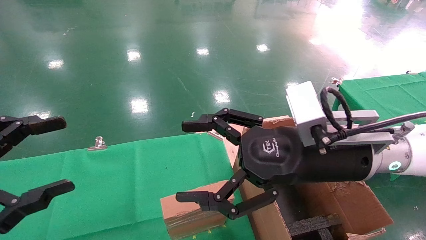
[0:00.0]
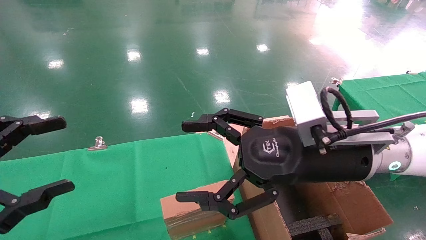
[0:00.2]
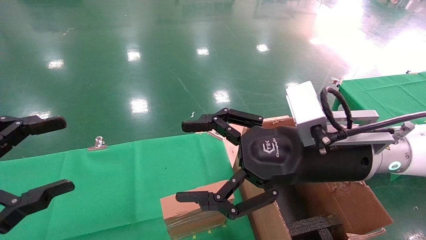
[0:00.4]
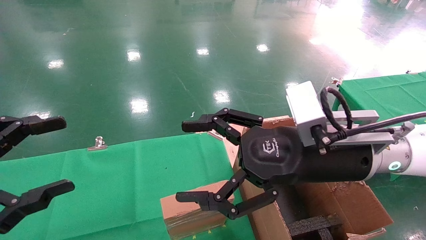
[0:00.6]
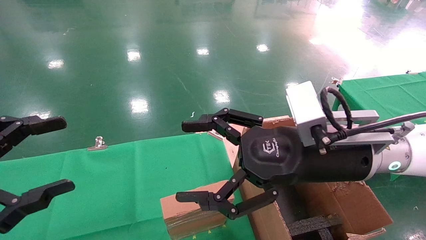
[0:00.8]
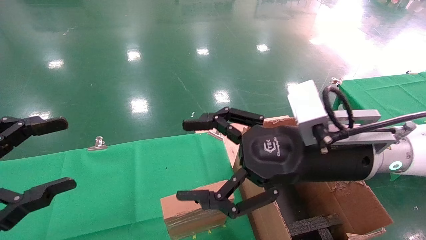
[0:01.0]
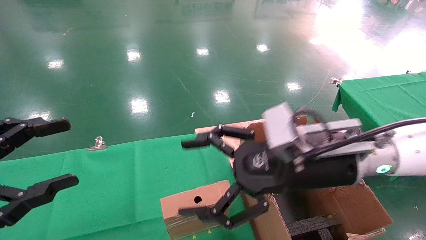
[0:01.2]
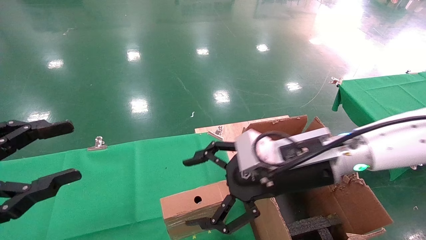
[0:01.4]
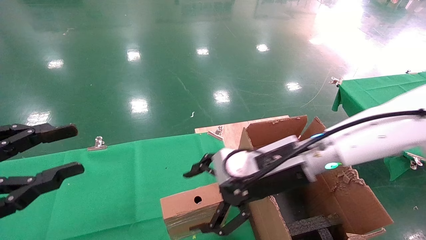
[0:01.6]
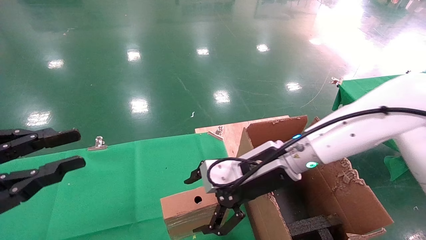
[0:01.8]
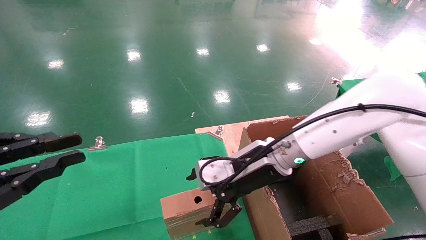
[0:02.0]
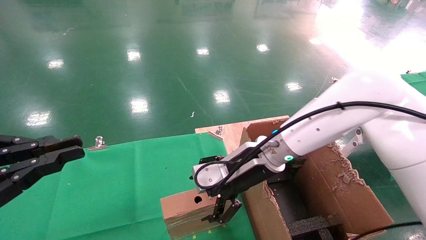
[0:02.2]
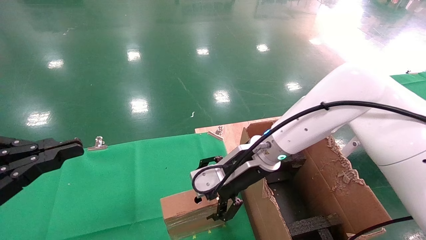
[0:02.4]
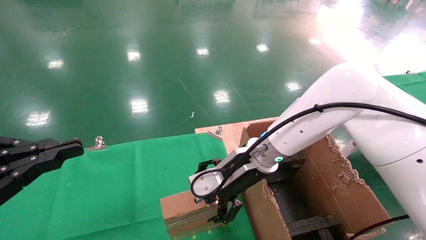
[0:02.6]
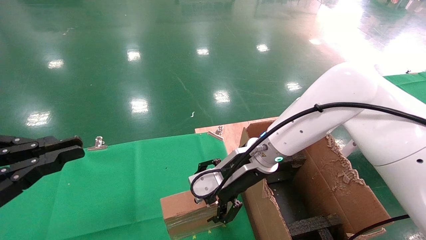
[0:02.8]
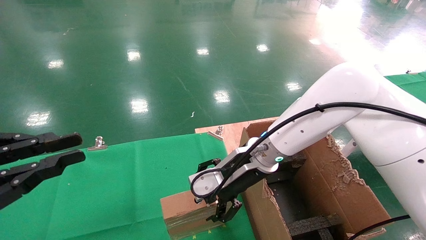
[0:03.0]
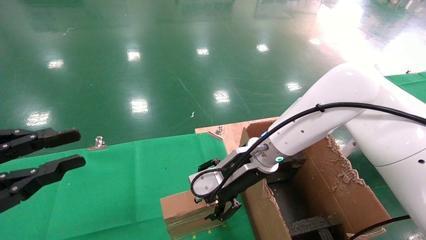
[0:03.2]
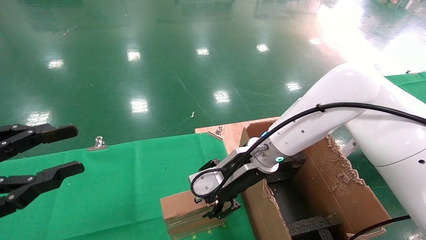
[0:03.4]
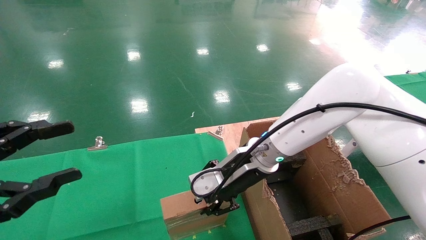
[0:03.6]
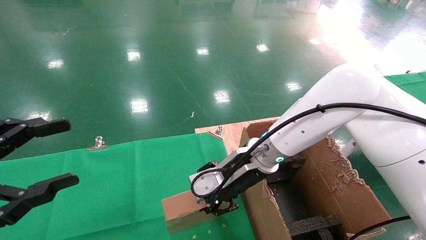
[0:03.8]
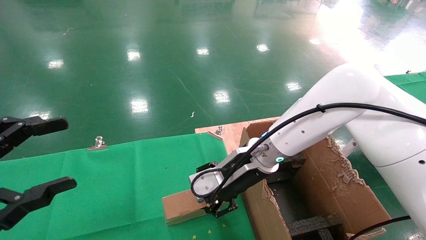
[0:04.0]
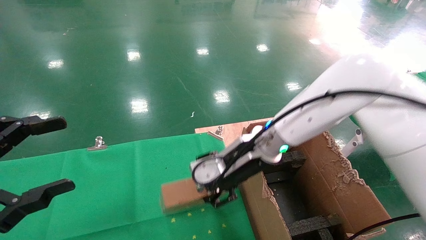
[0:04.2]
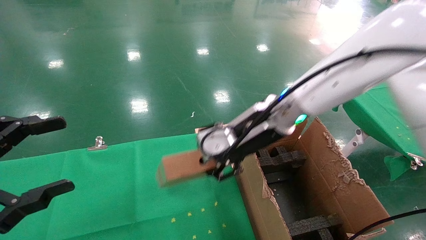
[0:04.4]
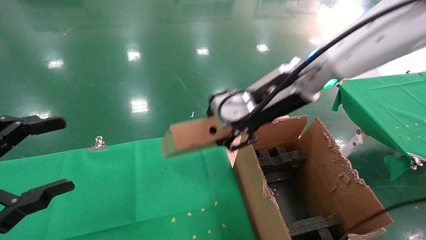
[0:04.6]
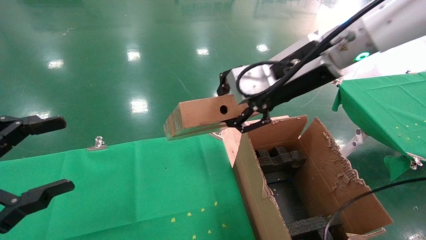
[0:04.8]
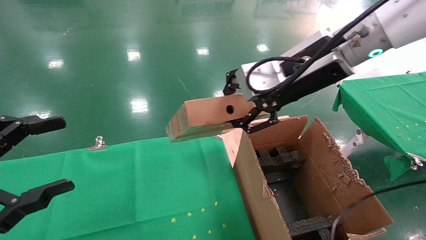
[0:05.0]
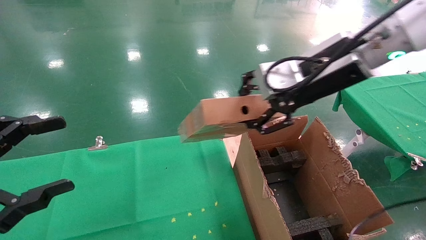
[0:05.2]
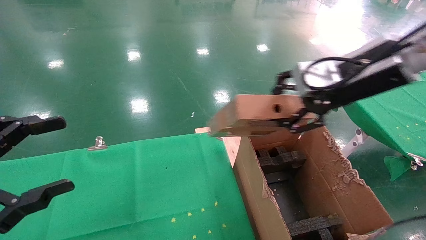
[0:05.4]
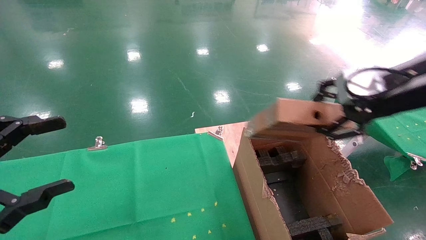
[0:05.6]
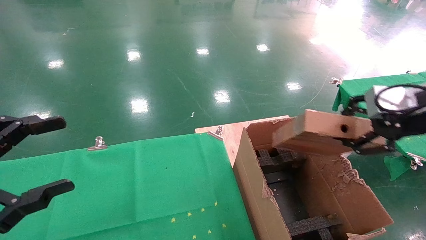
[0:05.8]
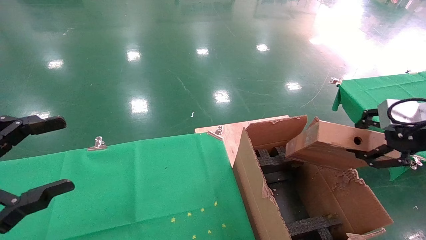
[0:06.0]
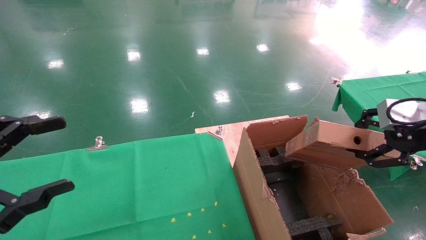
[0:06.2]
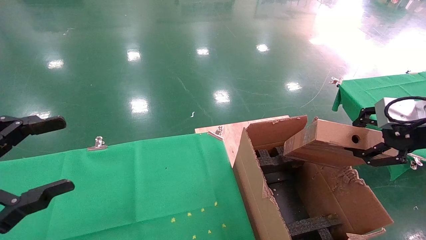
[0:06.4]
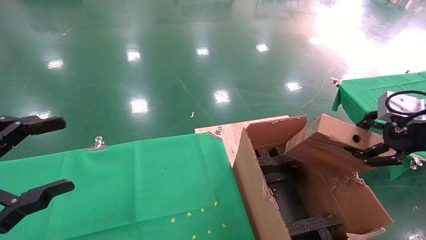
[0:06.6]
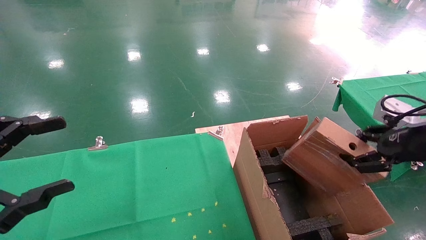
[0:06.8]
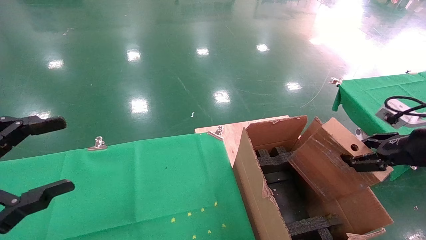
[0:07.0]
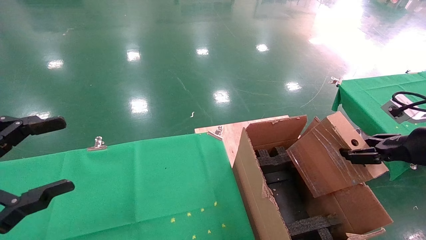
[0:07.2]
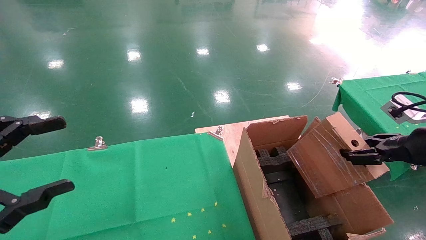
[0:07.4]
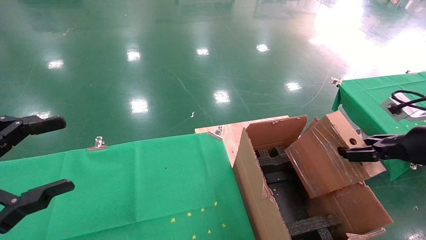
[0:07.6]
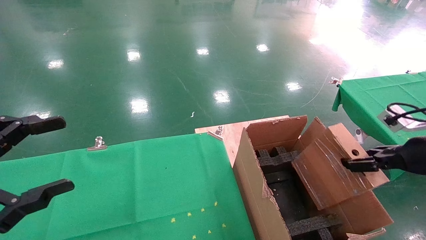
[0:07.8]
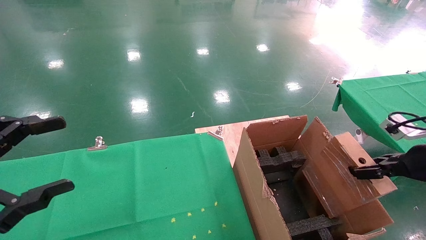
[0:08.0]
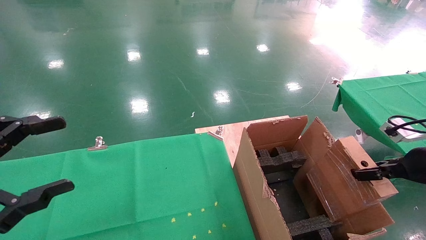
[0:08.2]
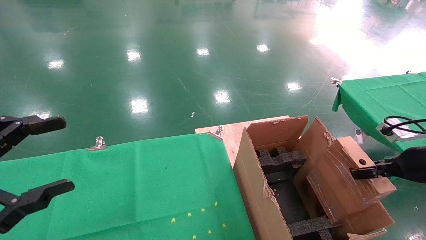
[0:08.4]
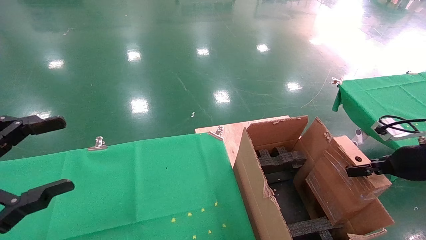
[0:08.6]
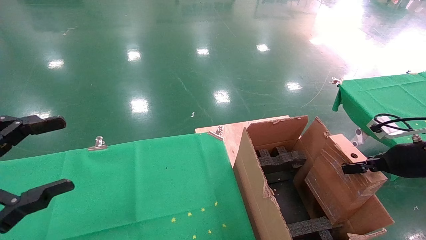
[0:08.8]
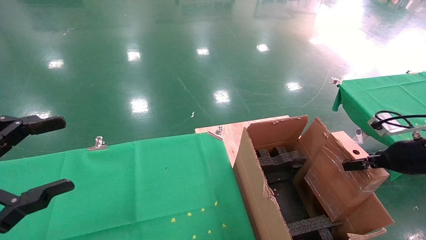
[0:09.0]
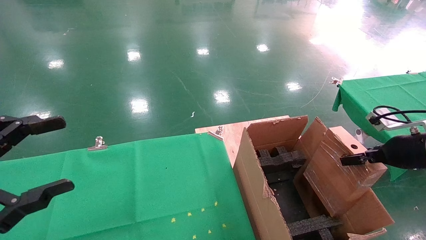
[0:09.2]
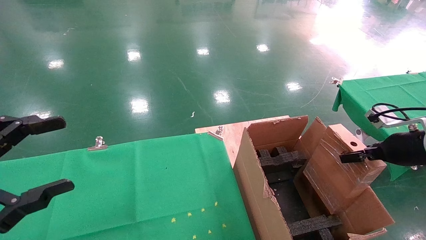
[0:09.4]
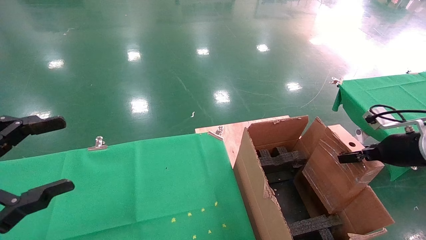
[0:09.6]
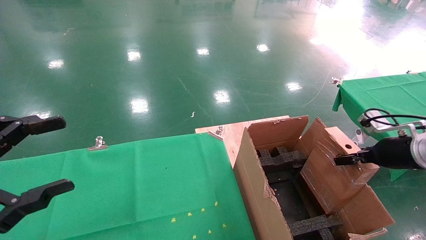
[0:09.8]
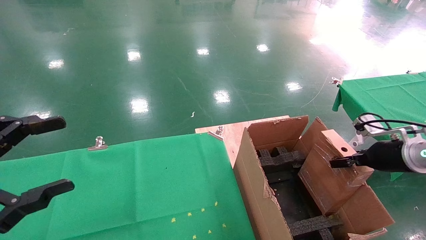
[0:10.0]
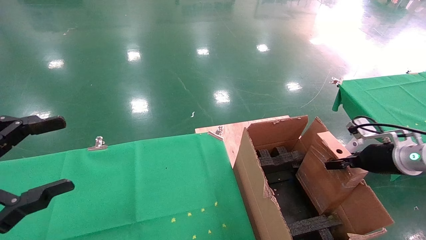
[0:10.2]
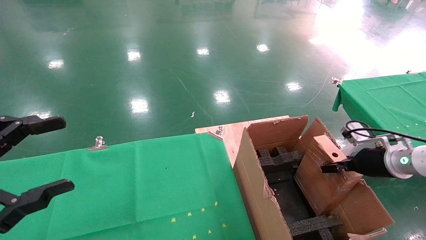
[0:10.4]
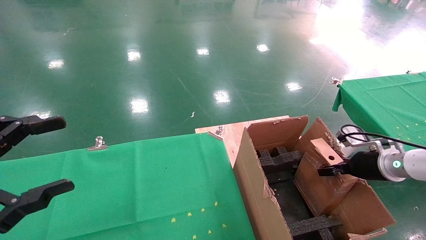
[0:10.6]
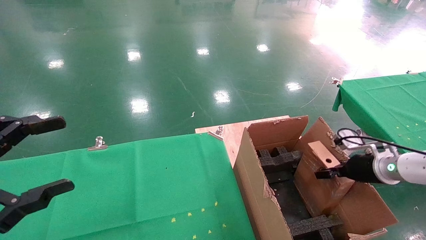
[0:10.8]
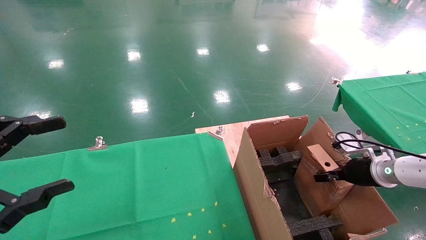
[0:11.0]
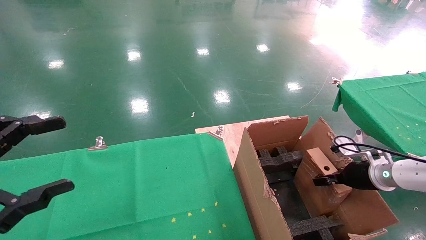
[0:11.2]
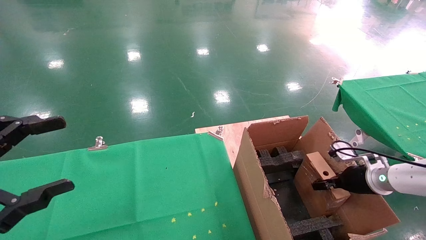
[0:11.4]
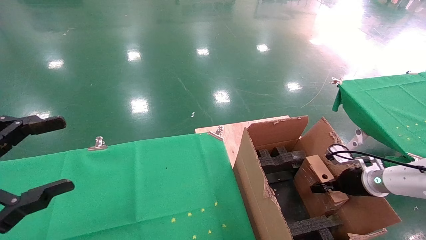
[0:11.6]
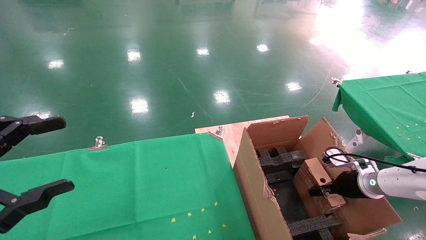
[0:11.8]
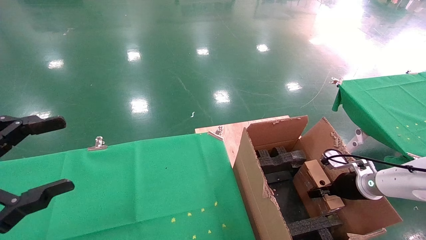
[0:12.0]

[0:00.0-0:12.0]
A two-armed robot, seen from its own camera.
Task of the whole recording: using a robotic arm to pick up a cardboard box and palace it the carton.
Step, 0:01.4 to 0:03.8: Pick up the mouse and the power cord paper box.
0:00.0 to 0:01.6: The right gripper shifts approximately 5 cm forward. Meanwhile the left gripper closes up.
0:01.6 to 0:03.0: The left gripper closes; the right gripper goes approximately 5 cm forward.
0:03.0 to 0:04.4: The left gripper opens its fingers. Meanwhile the right gripper heads upward, covering approximately 10 cm, and closes.
0:04.4 to 0:06.0: The right gripper heads to the right and backward, covering approximately 30 cm.
0:06.0 to 0:07.6: The right gripper heads downward, covering about 10 cm.
0:07.6 to 0:09.0: The right gripper travels forward by some 5 cm.
0:09.0 to 0:10.4: The right gripper heads downward and forward, covering some 10 cm.
0:10.4 to 0:12.0: The right gripper shifts roughly 10 cm downward.

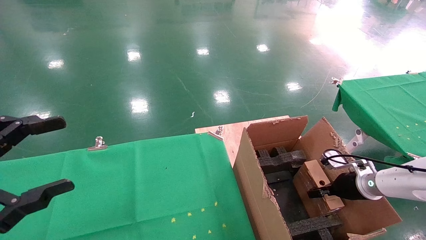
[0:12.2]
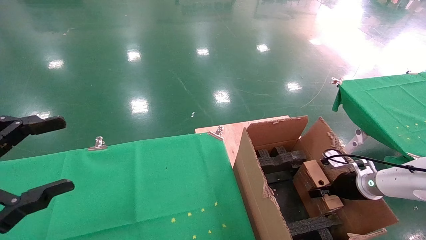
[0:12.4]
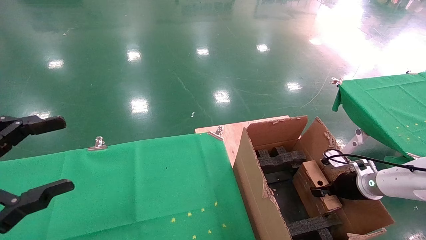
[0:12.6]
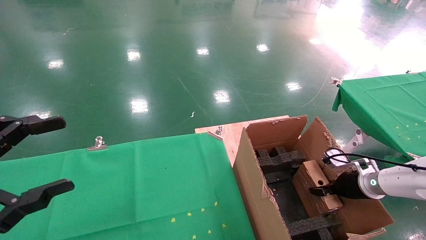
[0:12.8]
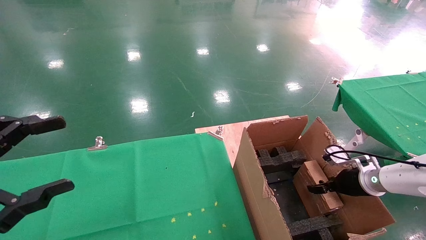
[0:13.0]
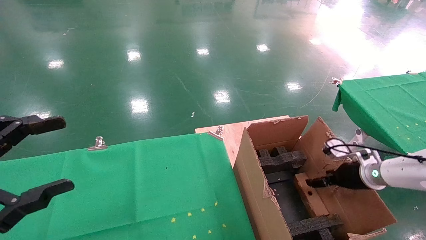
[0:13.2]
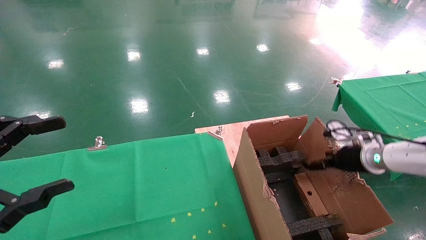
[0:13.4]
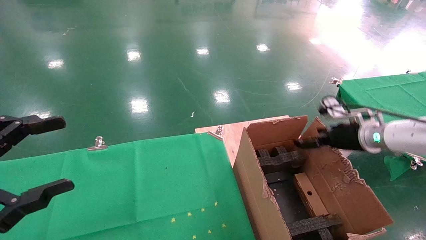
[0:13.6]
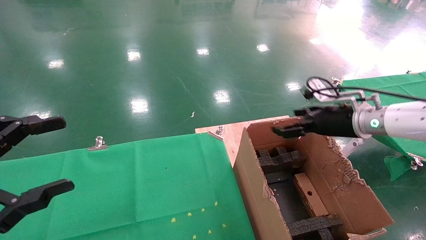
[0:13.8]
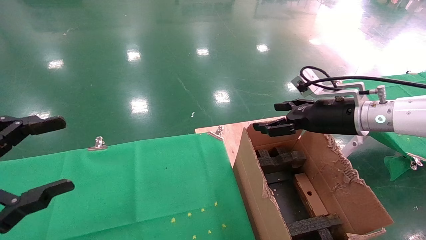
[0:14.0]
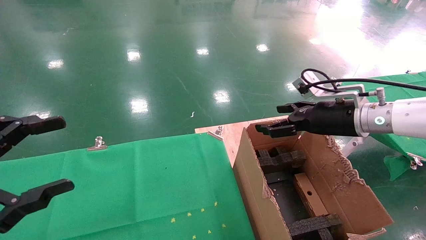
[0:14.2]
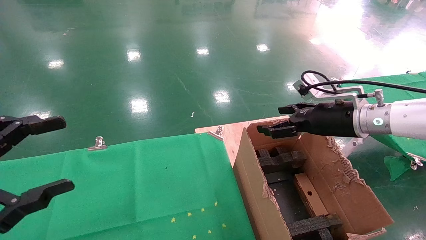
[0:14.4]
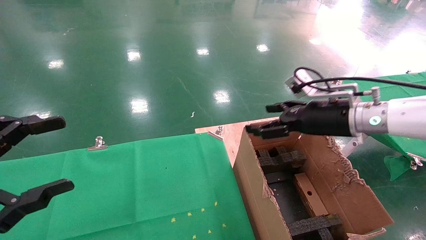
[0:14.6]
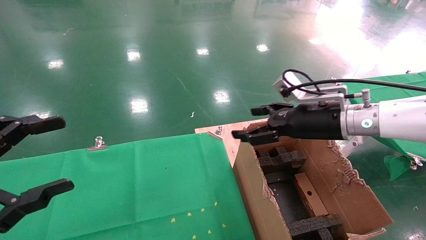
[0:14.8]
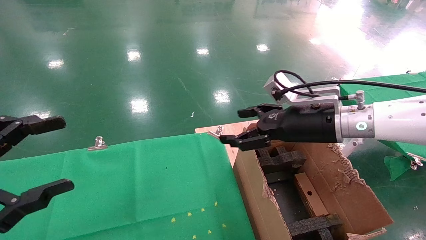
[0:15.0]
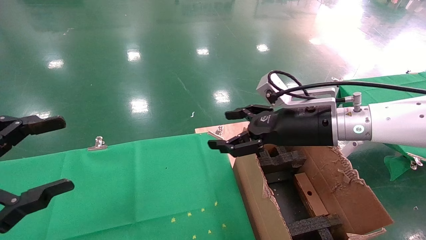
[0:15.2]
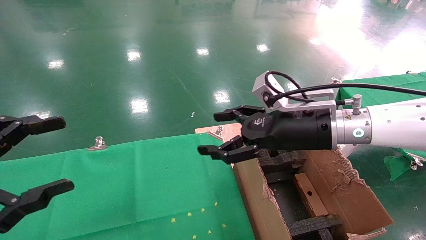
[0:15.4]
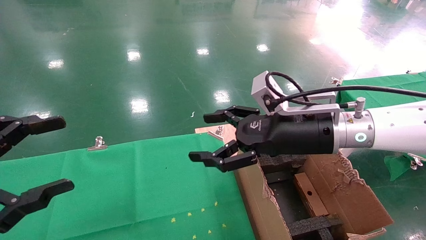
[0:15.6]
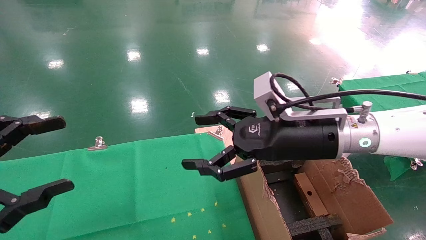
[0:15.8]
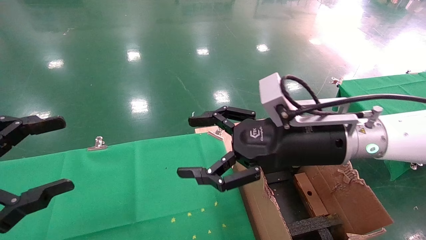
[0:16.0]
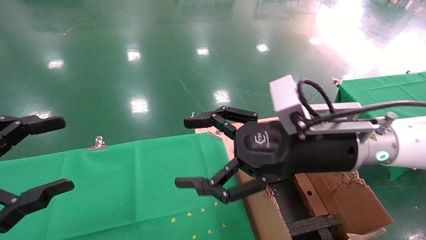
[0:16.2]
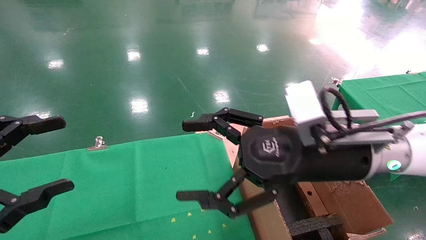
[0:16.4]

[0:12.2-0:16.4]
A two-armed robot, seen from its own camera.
Task of the whole recording: using a robotic arm to pick up a cardboard box and palace it the carton.
0:12.2 to 0:13.6: The right gripper heads upward, covering about 15 cm, and opens its fingers.
0:13.6 to 0:15.0: The right gripper heads to the left and upward, covering about 15 cm.
0:15.0 to 0:16.4: The right gripper moves backward and to the left, about 10 cm.
